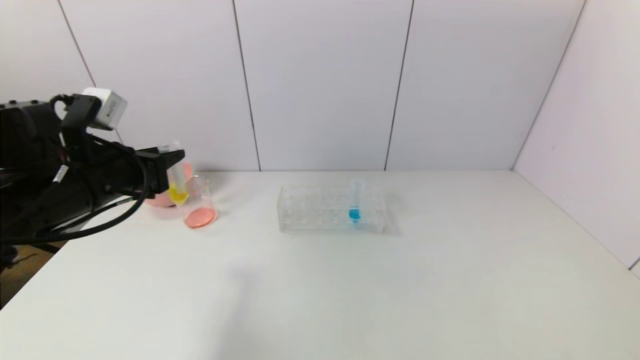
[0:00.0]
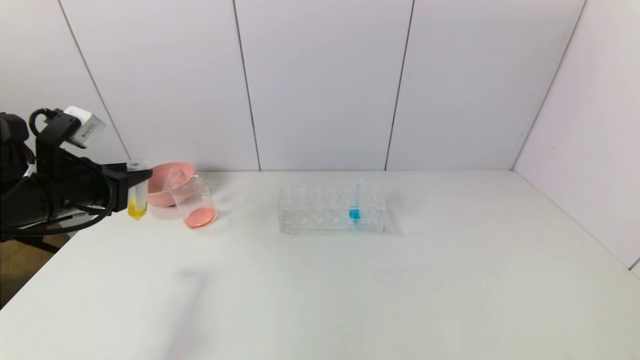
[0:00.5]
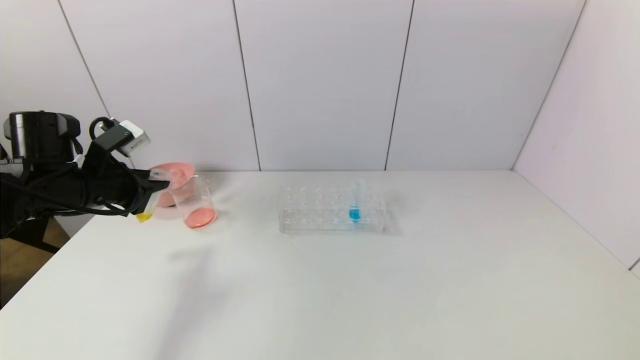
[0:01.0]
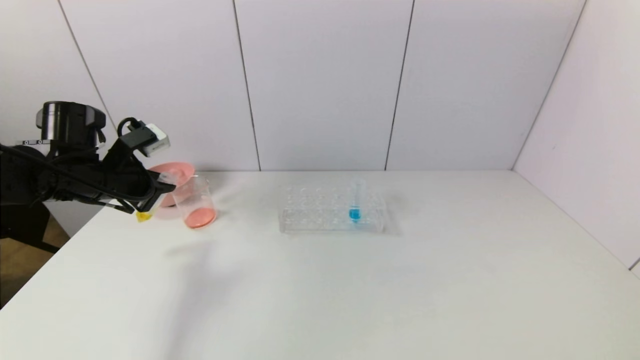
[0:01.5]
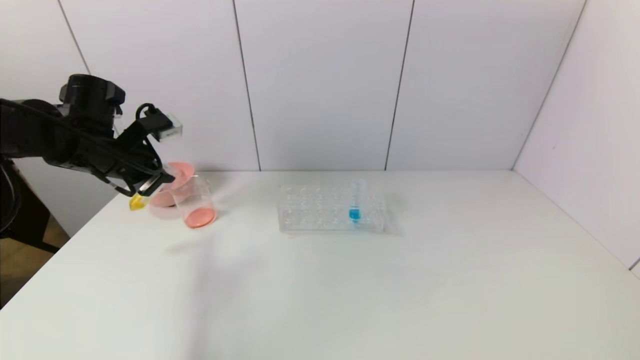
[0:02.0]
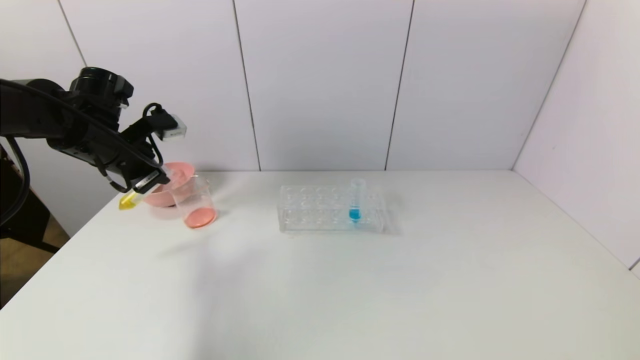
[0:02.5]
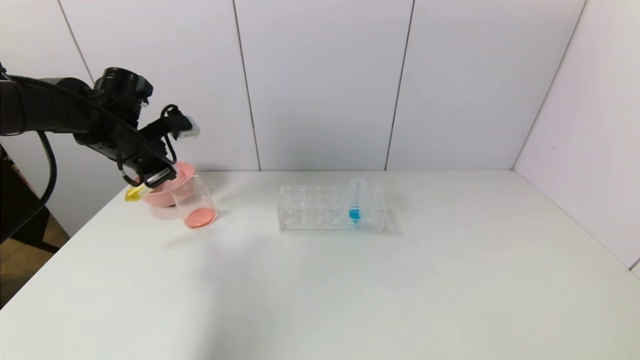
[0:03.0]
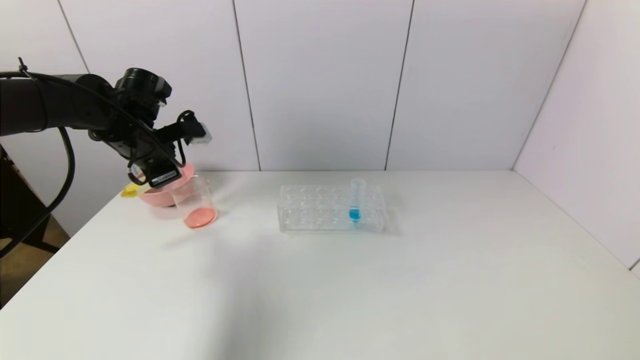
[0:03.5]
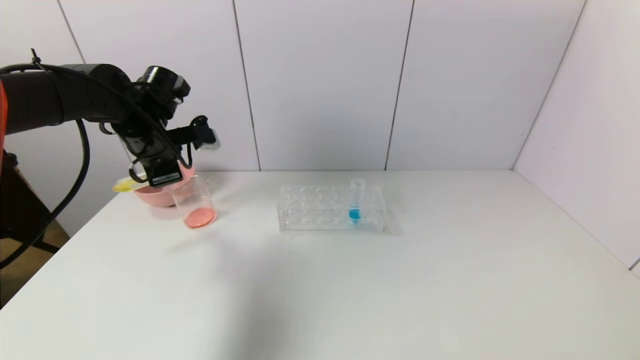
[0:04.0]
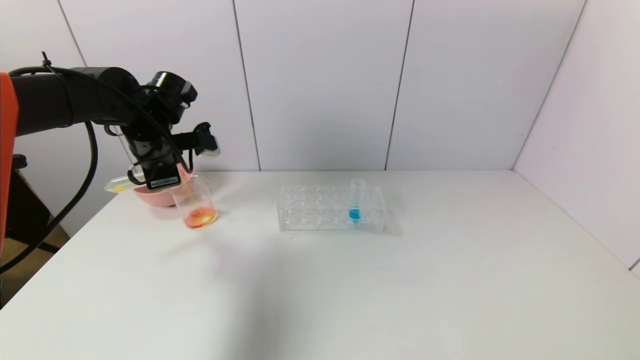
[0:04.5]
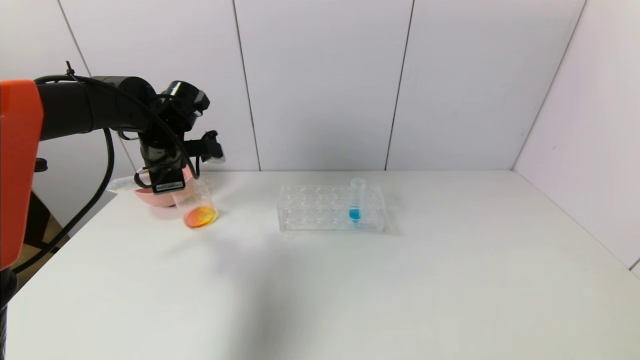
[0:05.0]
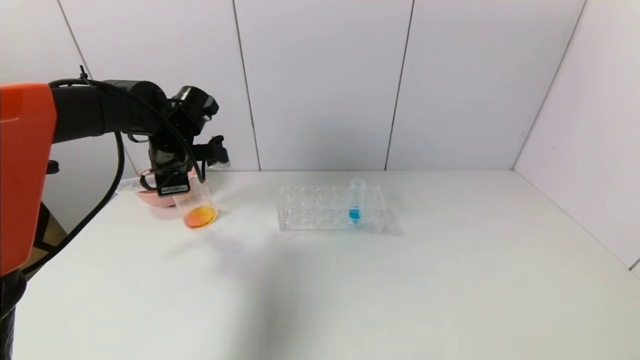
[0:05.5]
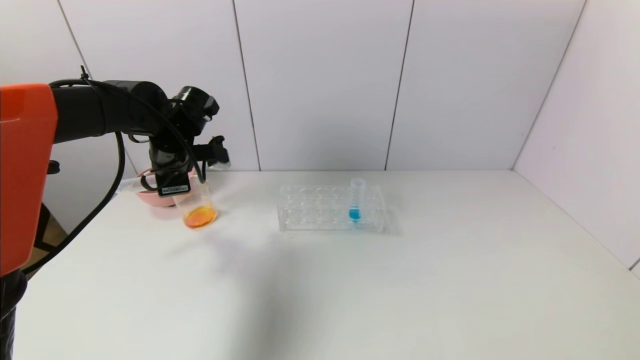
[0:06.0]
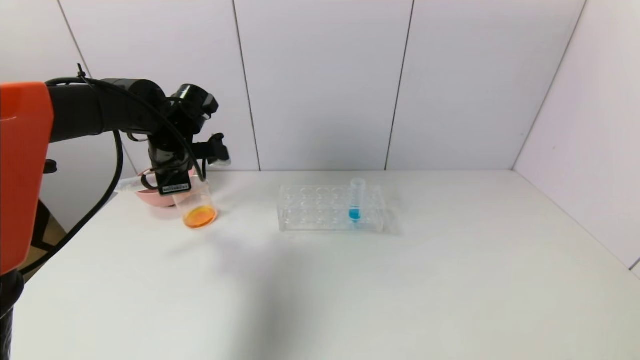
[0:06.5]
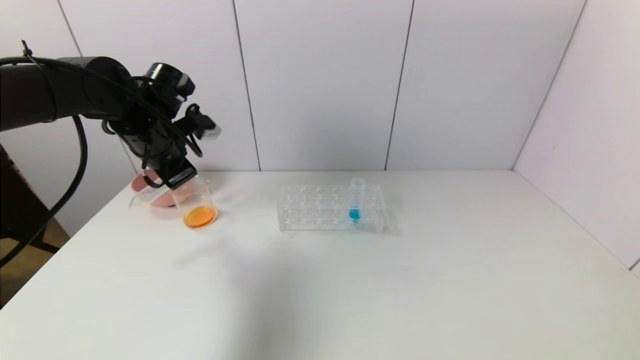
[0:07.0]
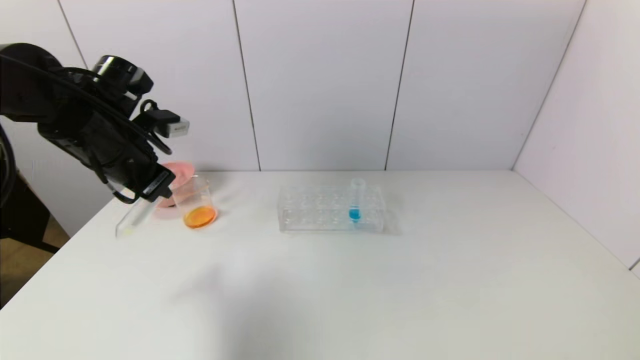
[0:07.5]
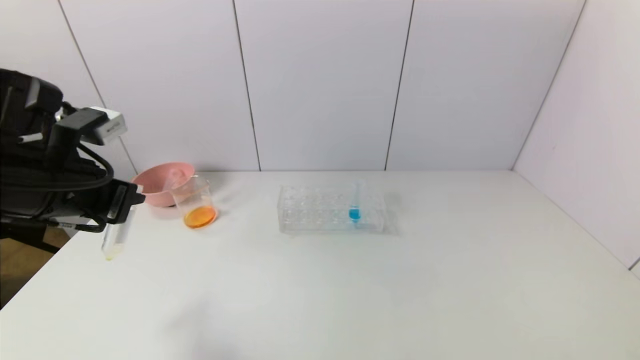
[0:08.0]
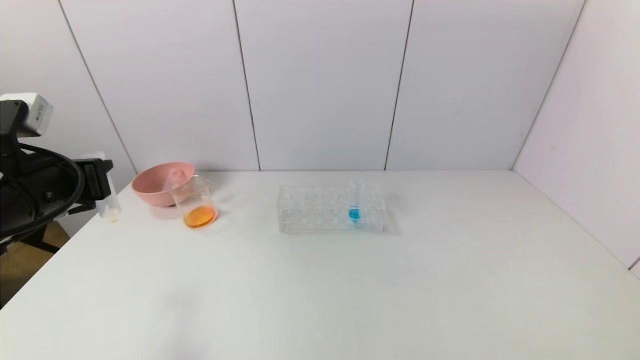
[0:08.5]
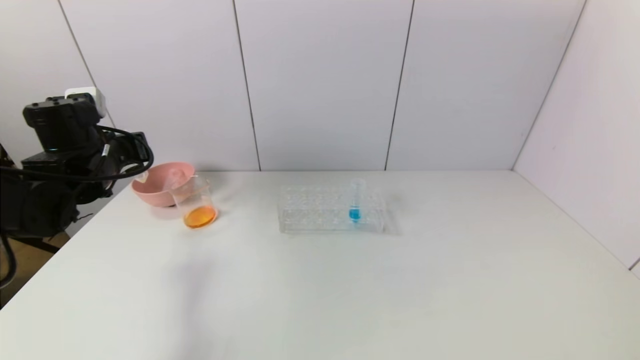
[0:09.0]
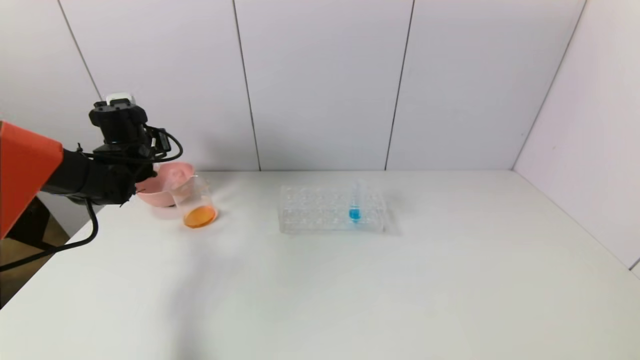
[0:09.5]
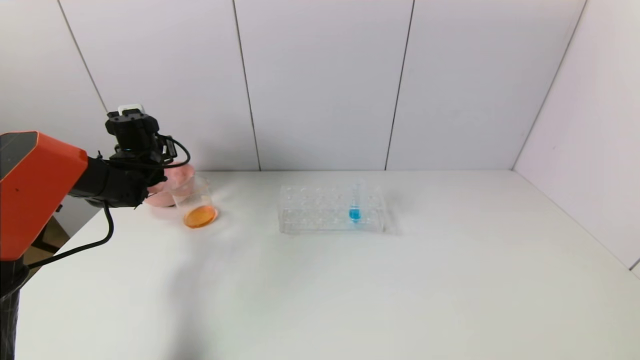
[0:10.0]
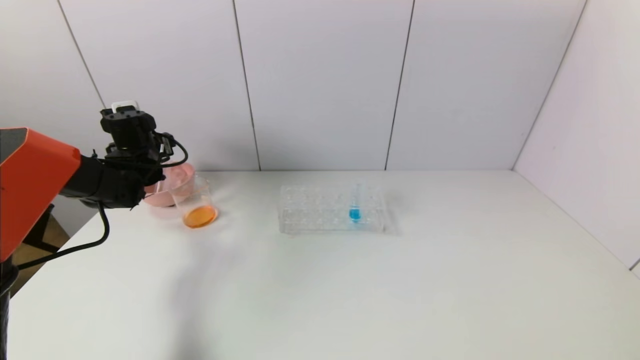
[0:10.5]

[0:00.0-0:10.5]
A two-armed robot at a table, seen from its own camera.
Task of the whole recording: pick up the test tube with yellow pigment and the test tube with red pigment by grippers and pour them into the beaker.
Step, 0:00.0 to 0:05.5: Pour the yellow reagent into the graduated cylinder with the left gripper.
Step, 0:06.0 to 0:10.0: Place the test tube into the pink bowl with the left gripper.
0:00.0 to 0:02.0: The left gripper travels forward by some 10 cm.
0:02.0 to 0:04.0: The left gripper travels to the right by approximately 5 cm.
0:04.0 to 0:06.5: The grippers stay close to where they were, moving slightly.
0:06.5 to 0:08.5: The left gripper is displaced backward and to the left by some 20 cm.
0:08.5 to 0:10.5: The left gripper shifts roughly 20 cm forward, and opens up.

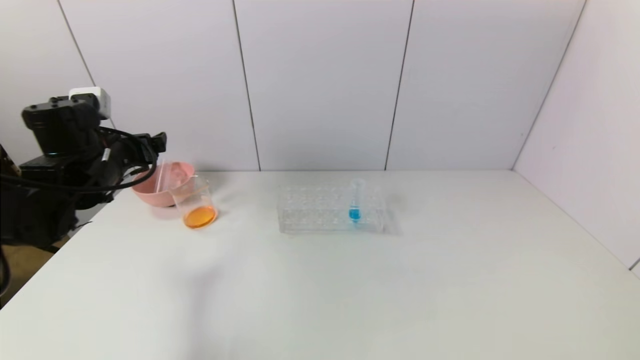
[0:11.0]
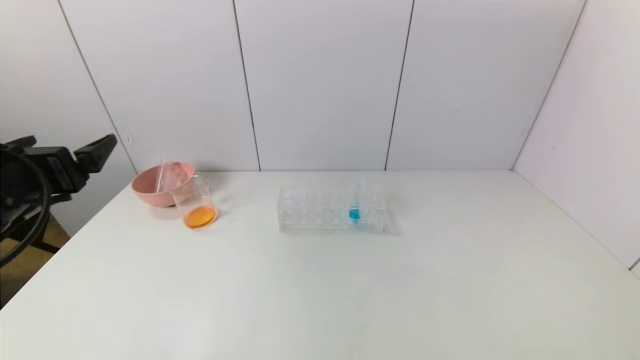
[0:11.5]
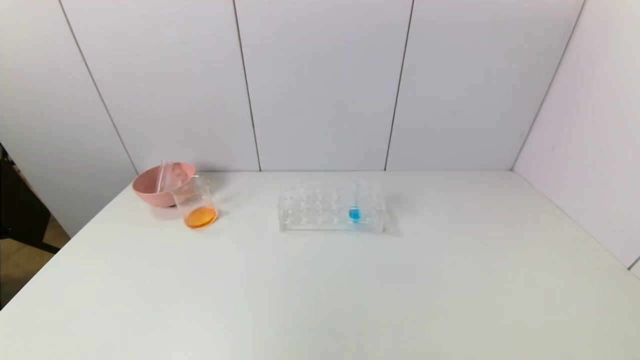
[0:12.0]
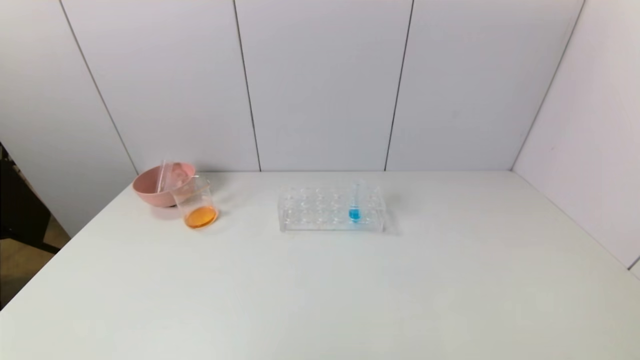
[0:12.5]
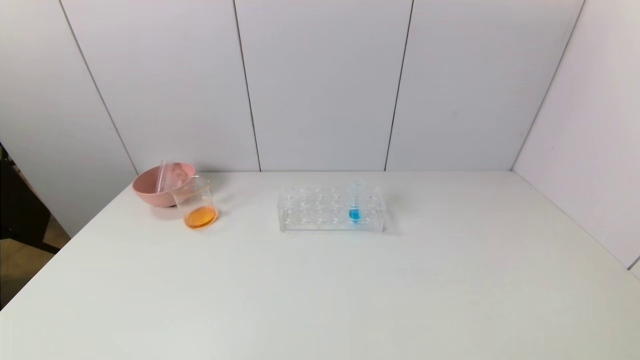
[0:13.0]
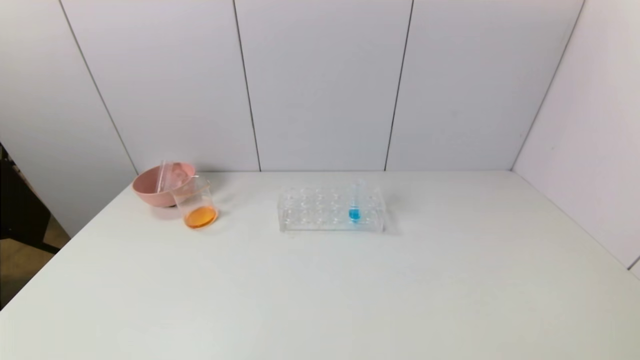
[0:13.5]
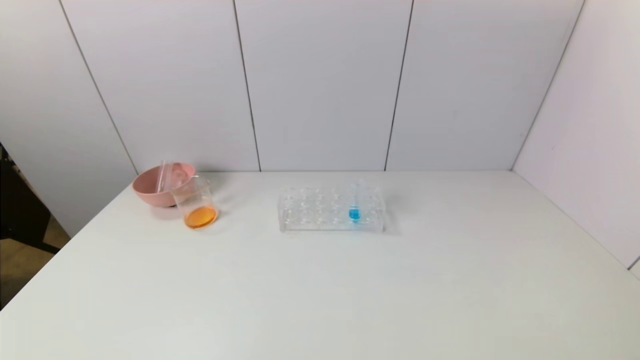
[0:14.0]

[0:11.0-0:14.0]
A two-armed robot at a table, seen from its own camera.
Task of the whole recording: pick up the test tube with yellow pigment and the test tube with red pigment by grippers and pour them into the beaker.
0:11.0 to 0:12.5: The left gripper heads backward, covering some 35 cm.
